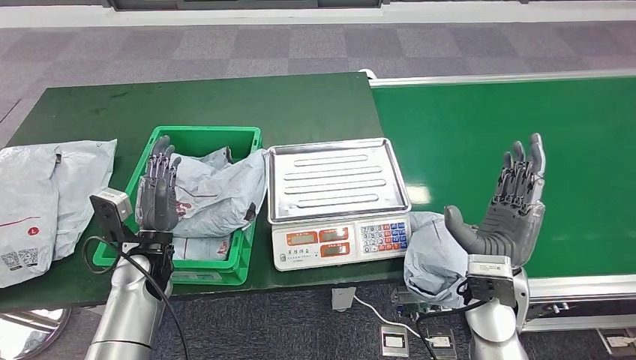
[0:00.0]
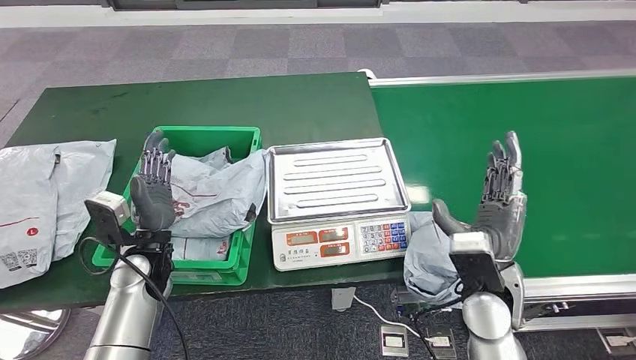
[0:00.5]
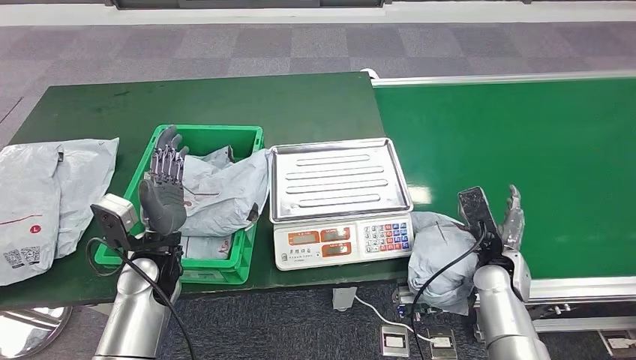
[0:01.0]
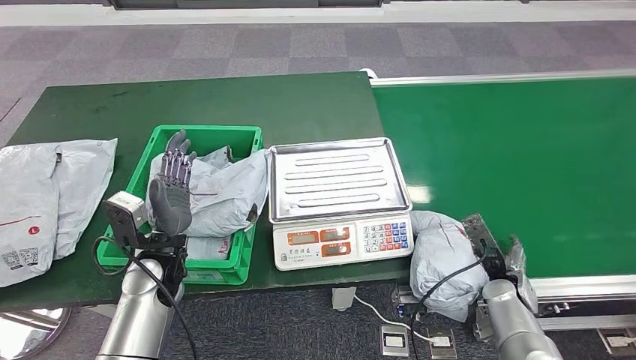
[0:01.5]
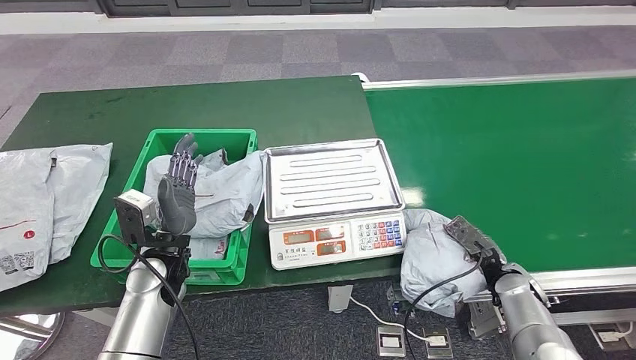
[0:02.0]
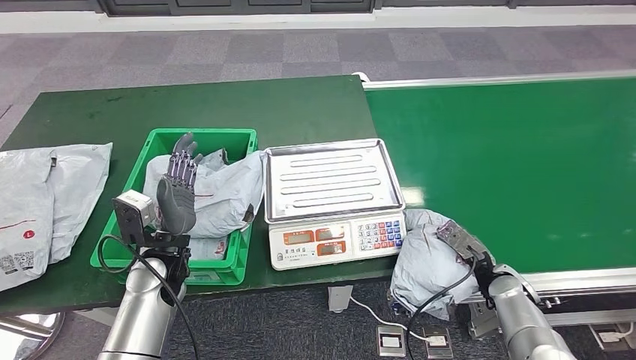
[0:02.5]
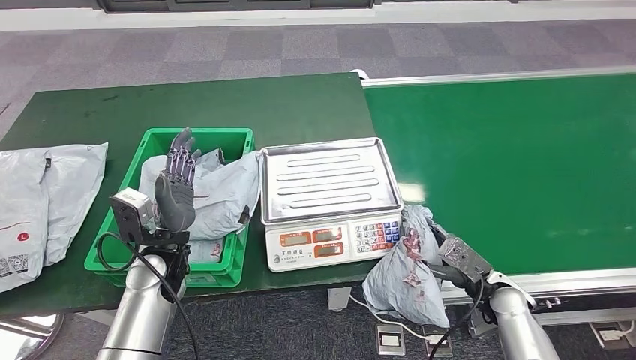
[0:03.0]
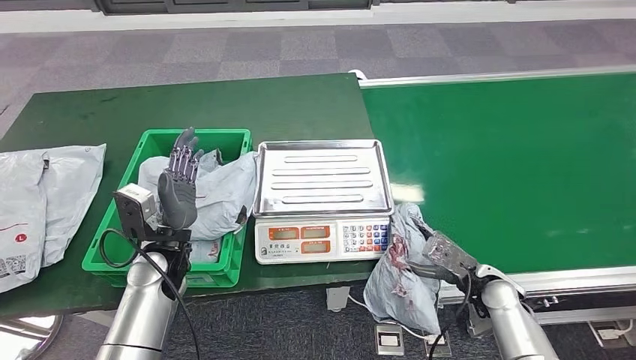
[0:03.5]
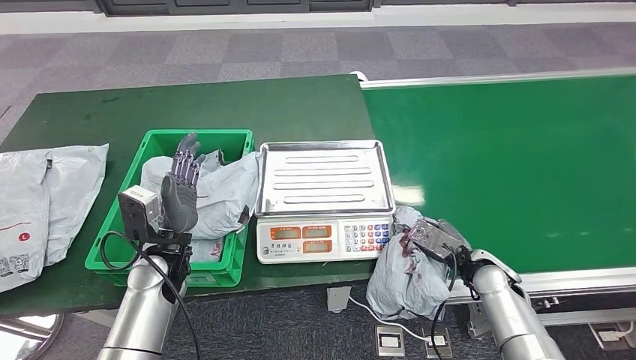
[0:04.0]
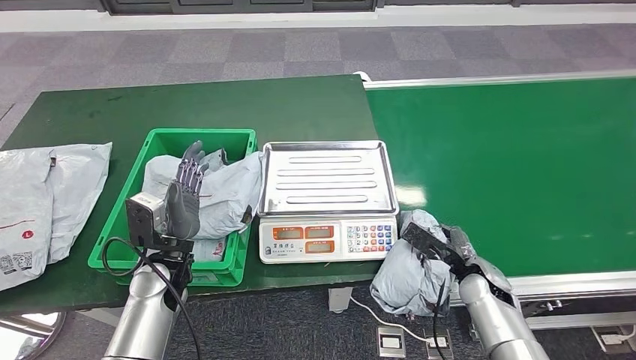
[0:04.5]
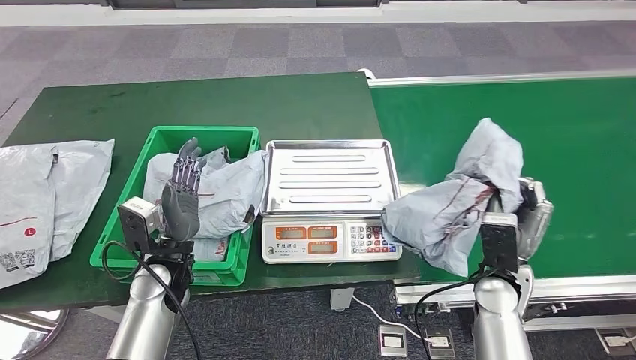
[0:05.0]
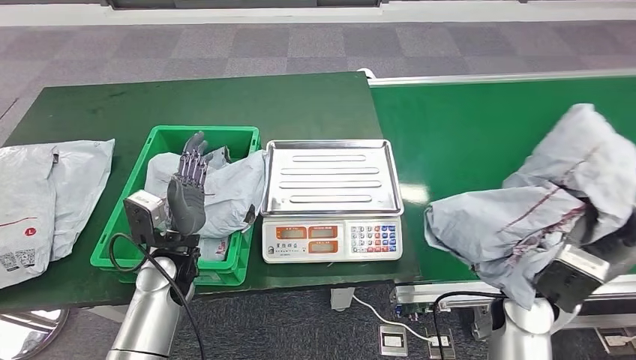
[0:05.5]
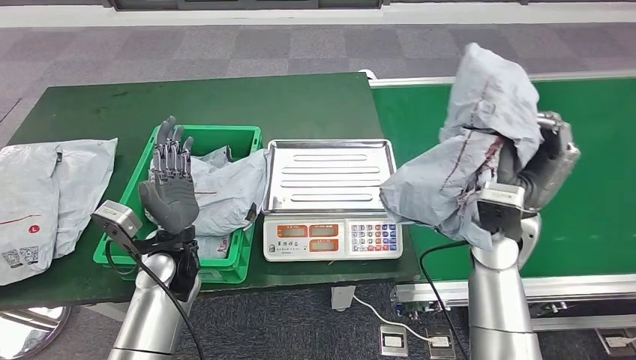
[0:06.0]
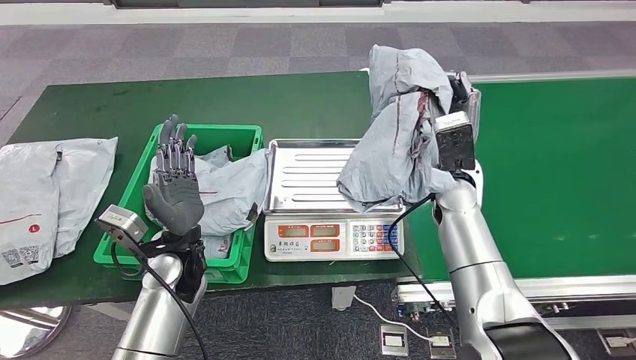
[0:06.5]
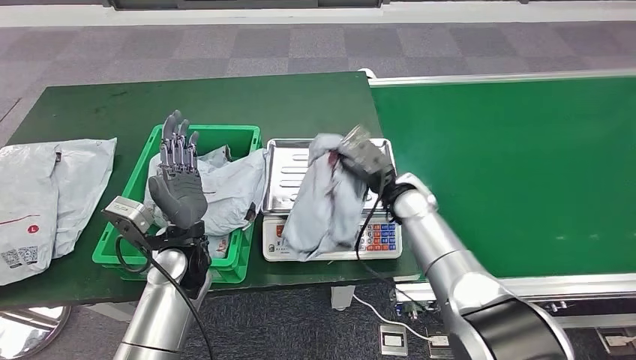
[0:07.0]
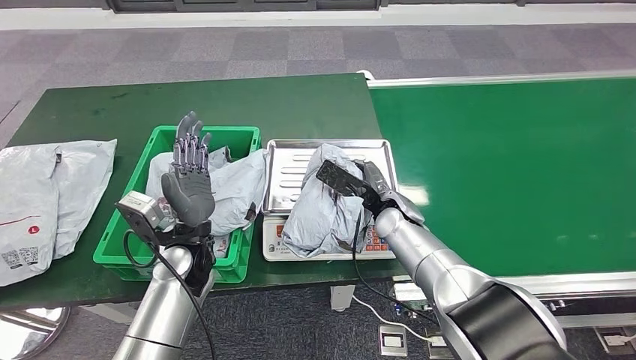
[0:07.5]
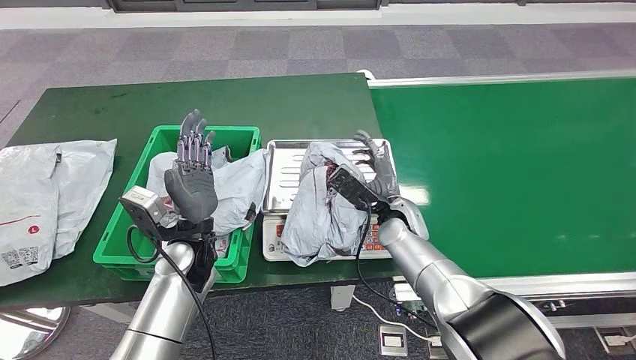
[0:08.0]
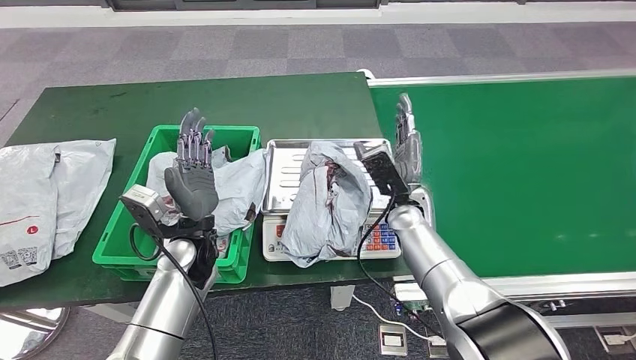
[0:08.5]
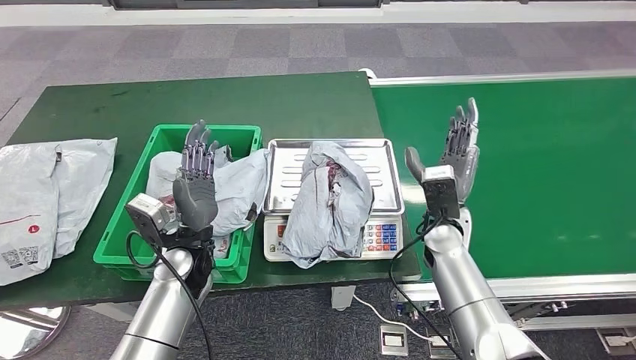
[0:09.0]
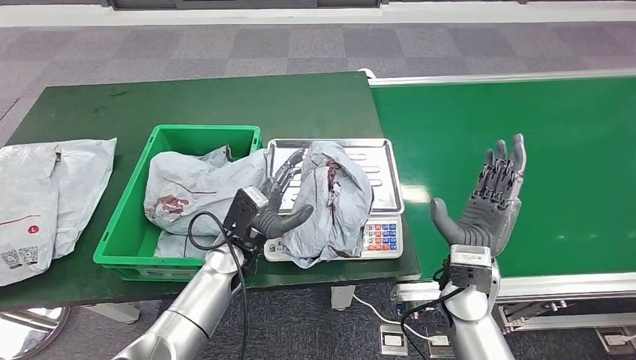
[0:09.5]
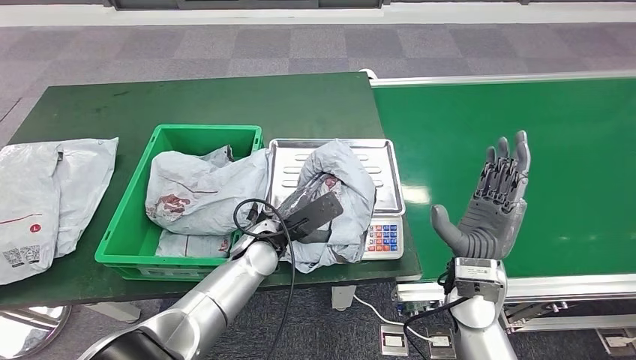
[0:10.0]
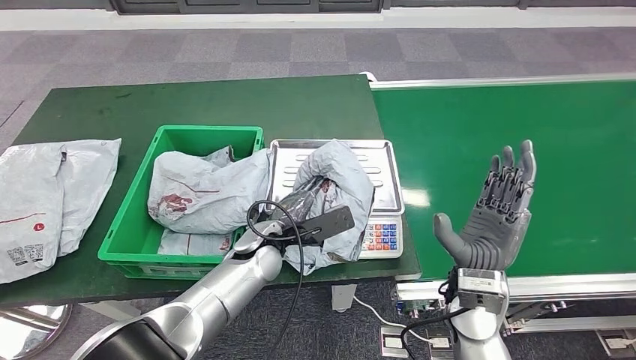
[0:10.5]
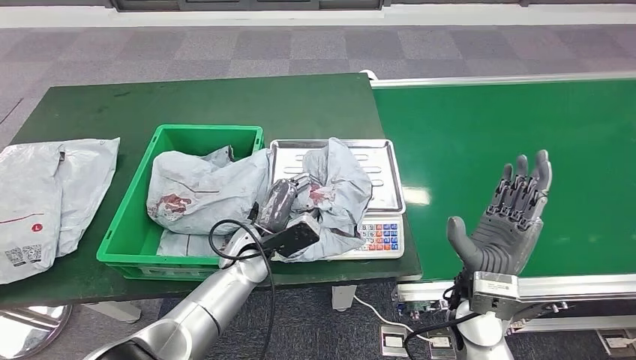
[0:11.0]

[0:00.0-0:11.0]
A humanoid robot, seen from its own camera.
Step, 0:04.5 to 0:06.0: Pick up the parcel from the conveyor belt.
Step, 0:06.5 to 0:08.5: Place the parcel onto the inbound machine.
0:07.5 to 0:09.0: The right hand goes about 10 cm to the right.

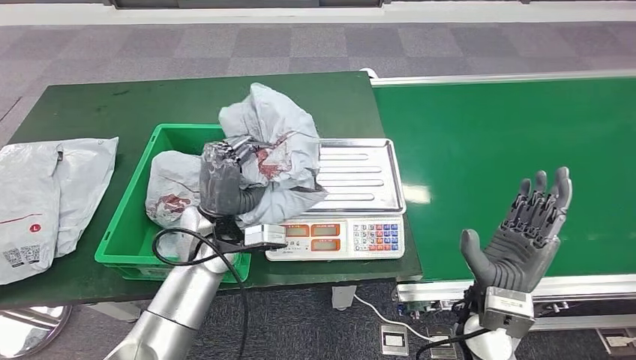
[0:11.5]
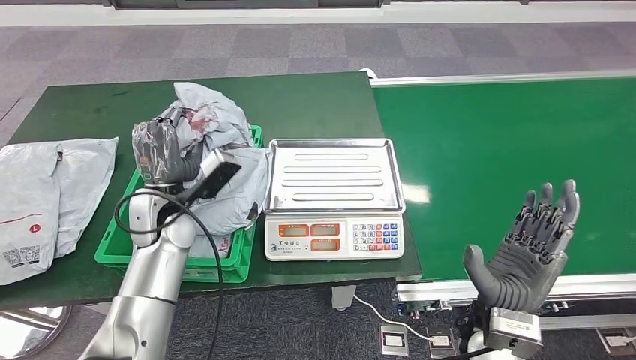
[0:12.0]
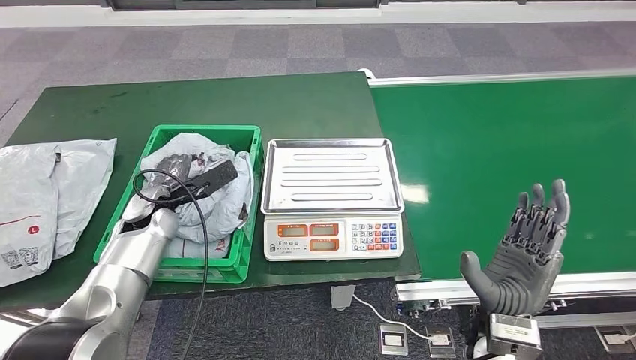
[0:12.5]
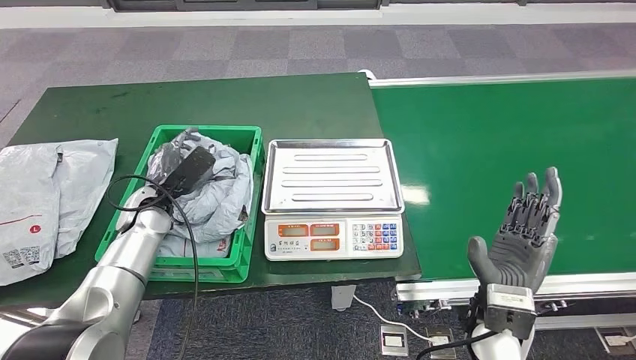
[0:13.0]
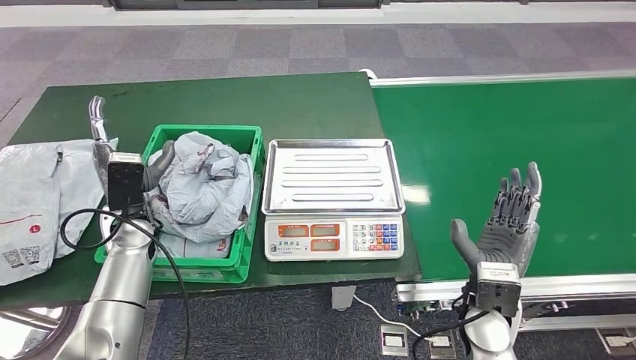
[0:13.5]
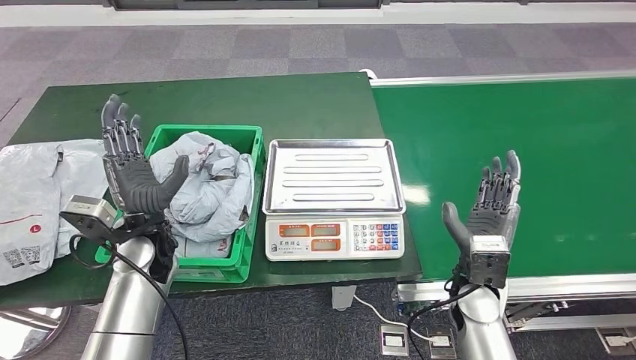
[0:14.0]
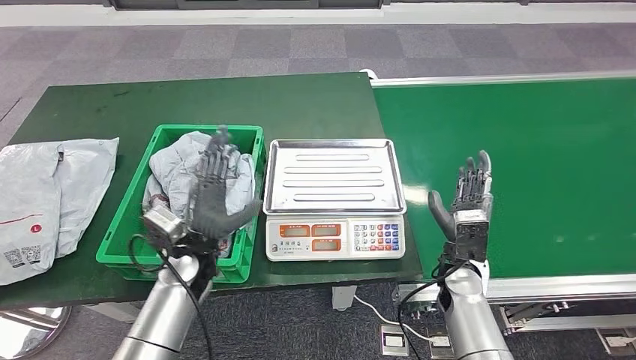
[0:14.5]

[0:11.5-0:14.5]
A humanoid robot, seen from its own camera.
Step, 0:12.0 to 0:14.5: Place the parcel into the delivery box.
